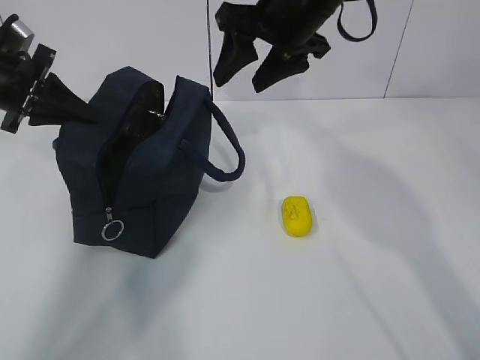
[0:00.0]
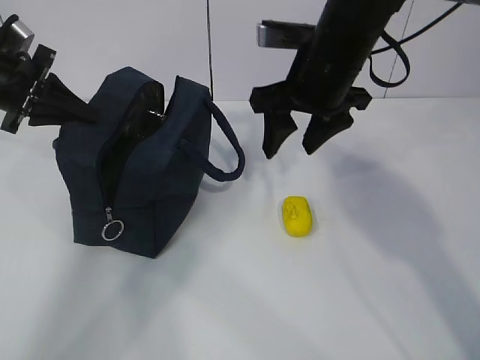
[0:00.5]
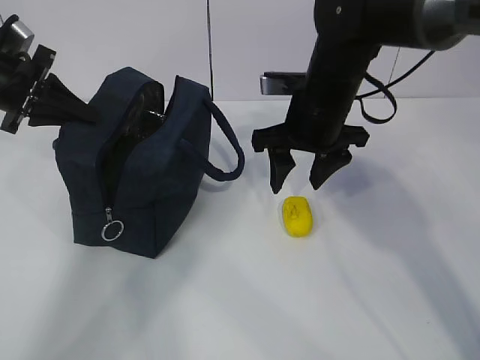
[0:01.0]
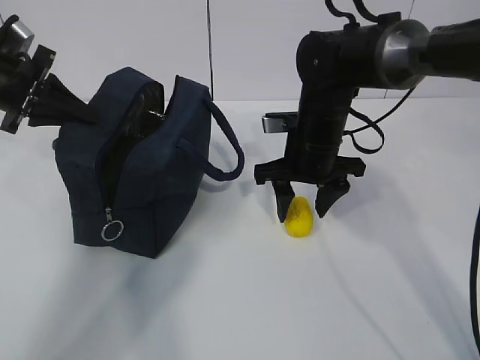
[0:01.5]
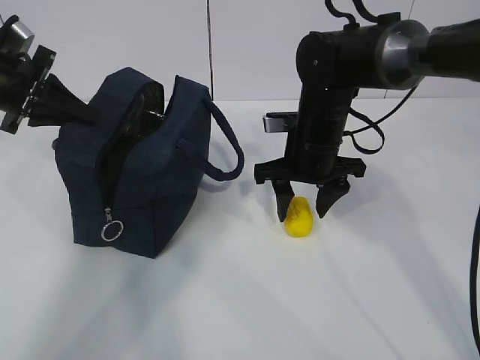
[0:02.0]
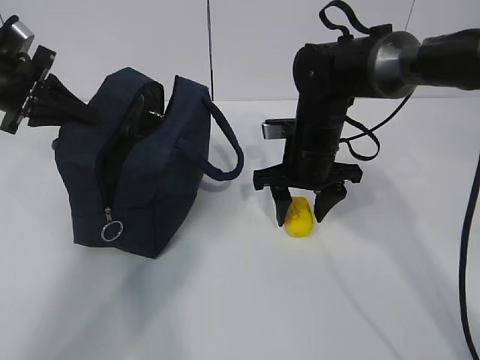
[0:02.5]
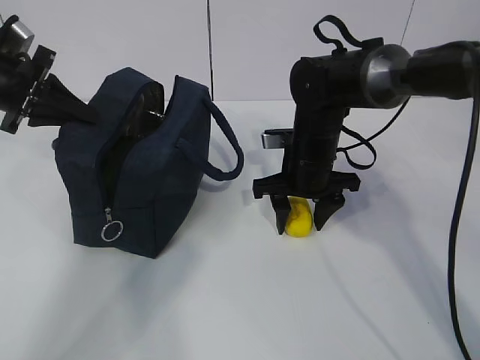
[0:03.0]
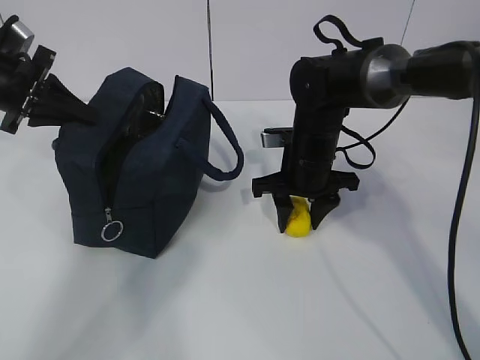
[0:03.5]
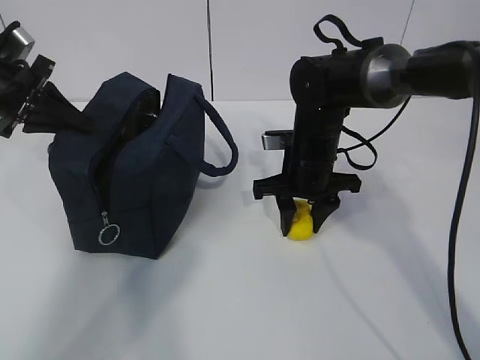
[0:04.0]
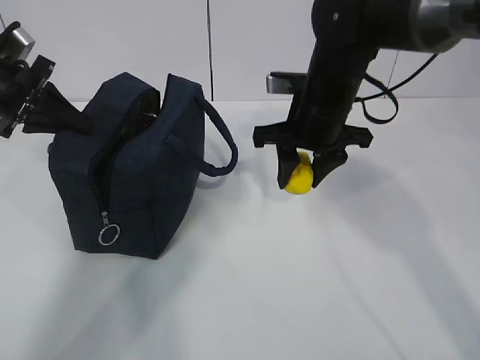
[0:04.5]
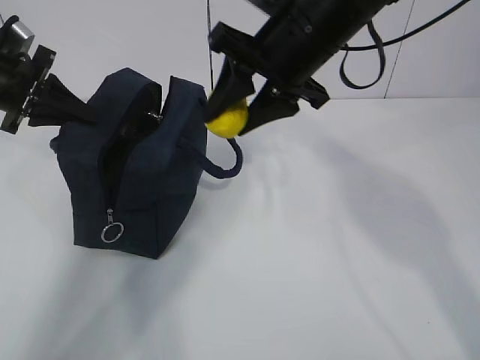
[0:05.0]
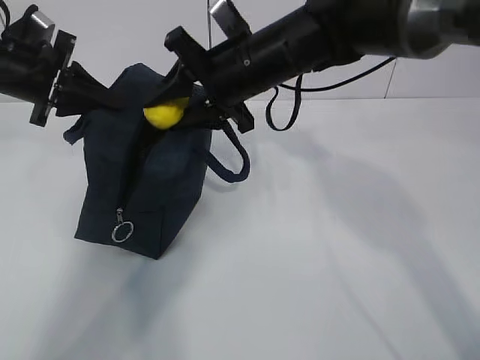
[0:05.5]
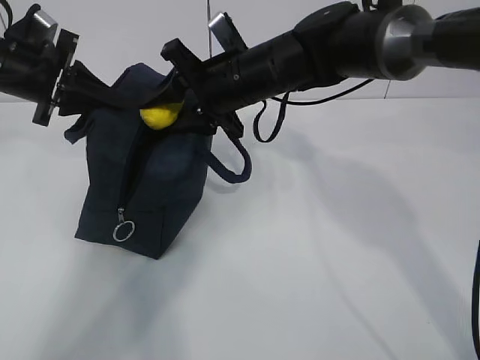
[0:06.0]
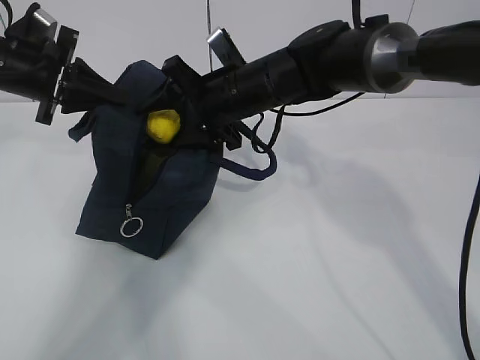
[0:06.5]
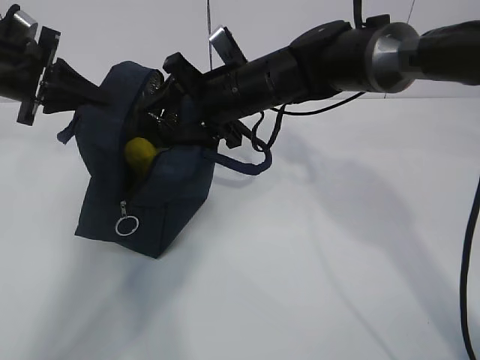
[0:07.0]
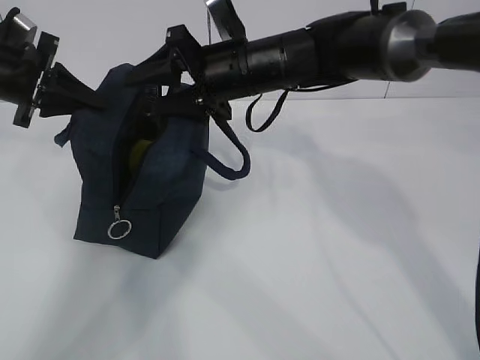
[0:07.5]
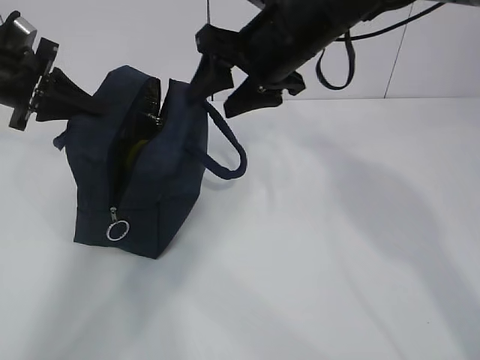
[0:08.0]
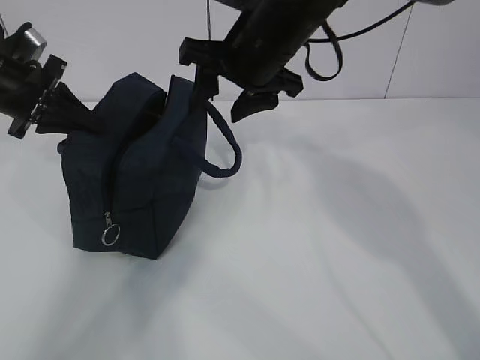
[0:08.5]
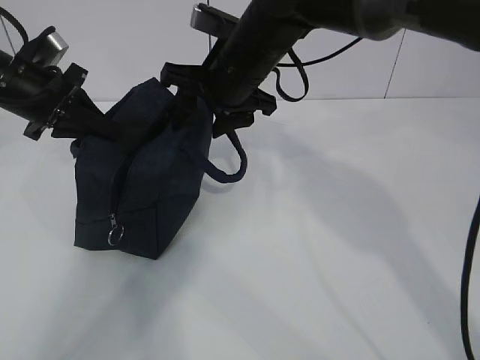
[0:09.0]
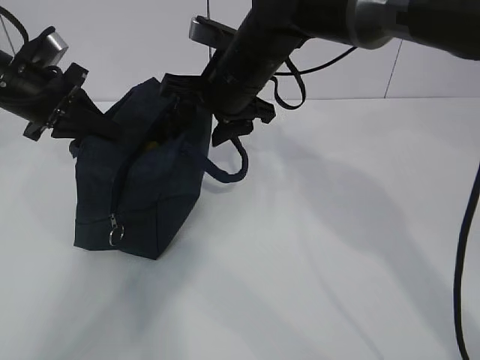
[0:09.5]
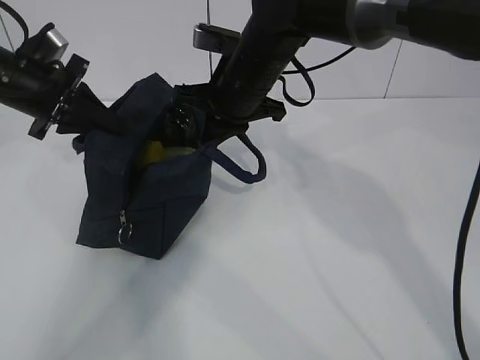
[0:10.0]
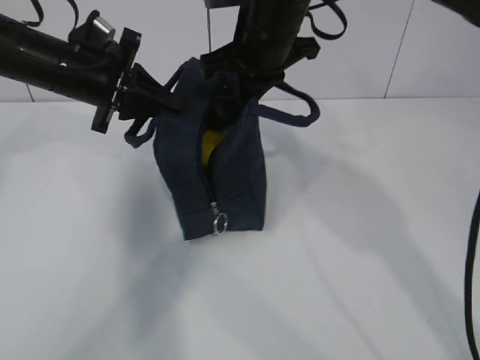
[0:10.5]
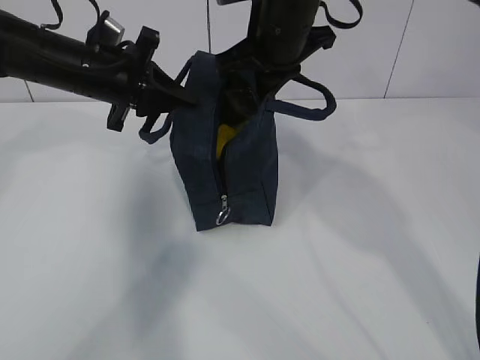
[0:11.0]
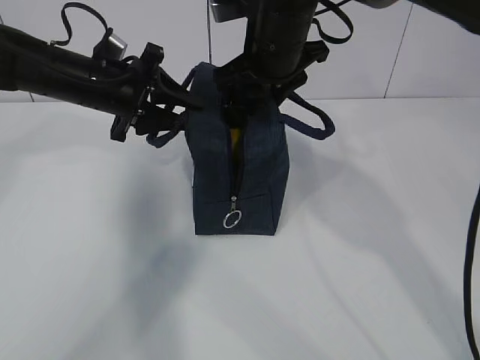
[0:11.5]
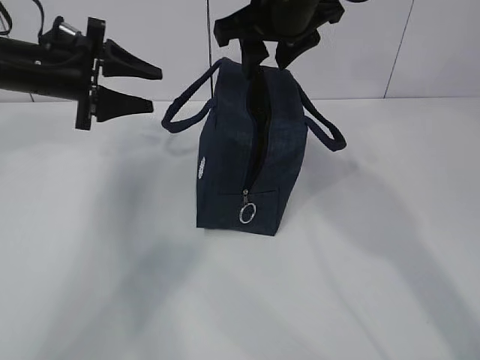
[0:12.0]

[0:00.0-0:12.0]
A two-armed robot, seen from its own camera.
Step, 0.5 to 2.0 s: Grab the lunch bag with your right hand.
Step, 2.5 to 4.0 s: Move the lunch bag to the right.
0.0 to 2.0 s: The right gripper goes some 15 cm downward.
2.0 to 4.0 s: The grippers make only small movements.
4.0 to 6.0 s: The right gripper is displaced upward and to the left by approximately 15 cm.
6.0 to 8.0 s: The right gripper goes some 5 cm upward.
8.0 to 10.0 s: The right gripper moves downward, approximately 5 cm, and closes up.
10.0 to 12.0 s: The right gripper moves upward, about 10 cm, and opens up. The left gripper goes to the right and returns, approximately 10 cm each way, and opens its fingers.

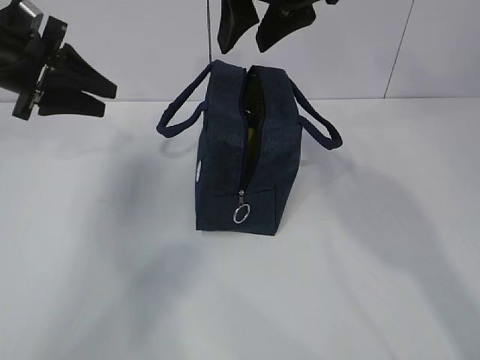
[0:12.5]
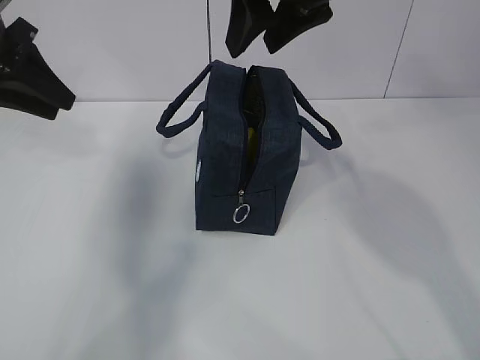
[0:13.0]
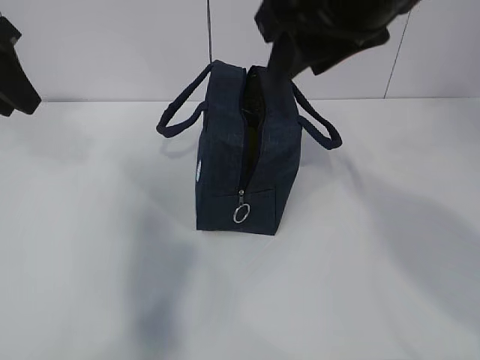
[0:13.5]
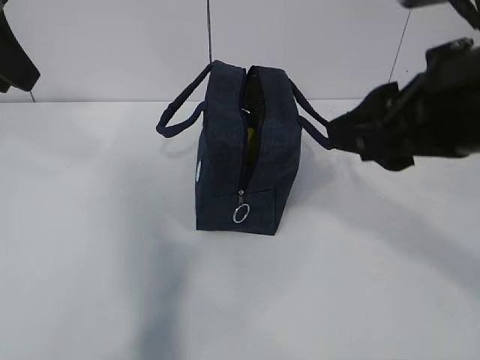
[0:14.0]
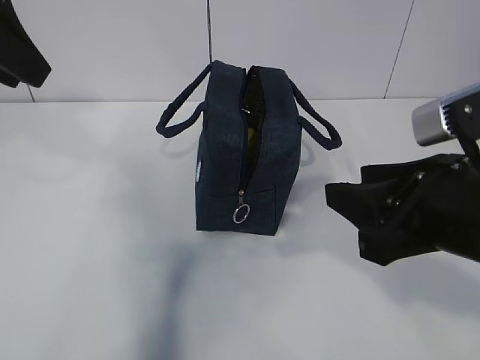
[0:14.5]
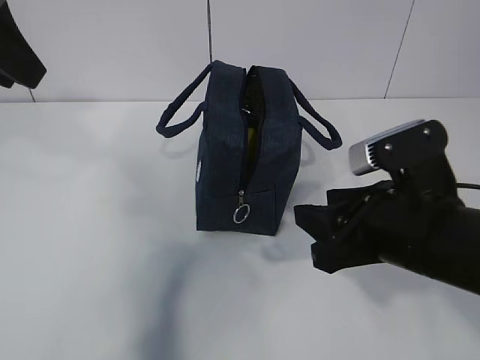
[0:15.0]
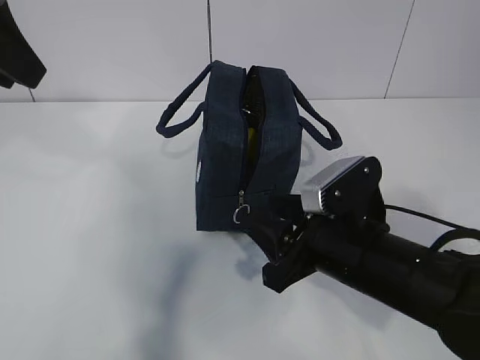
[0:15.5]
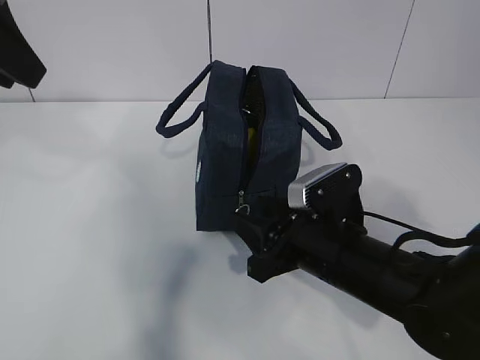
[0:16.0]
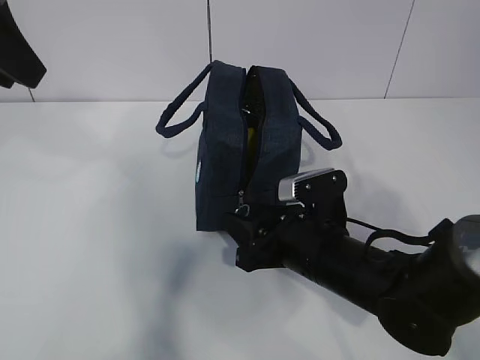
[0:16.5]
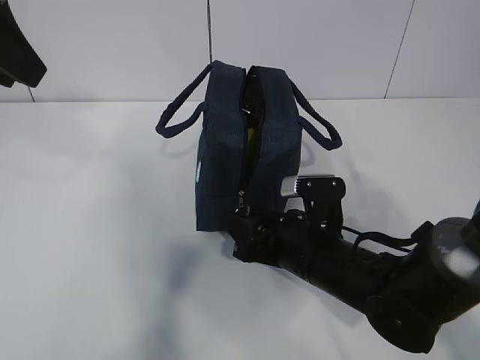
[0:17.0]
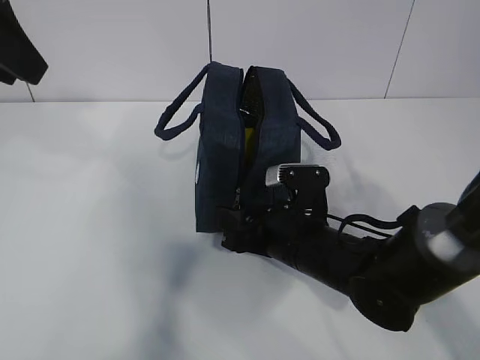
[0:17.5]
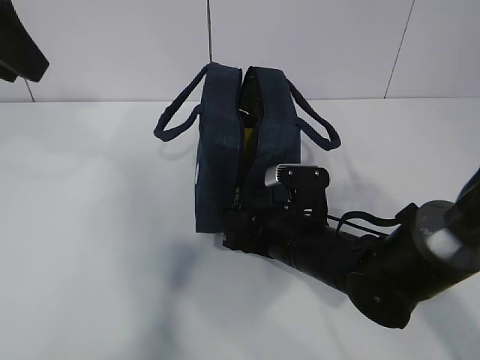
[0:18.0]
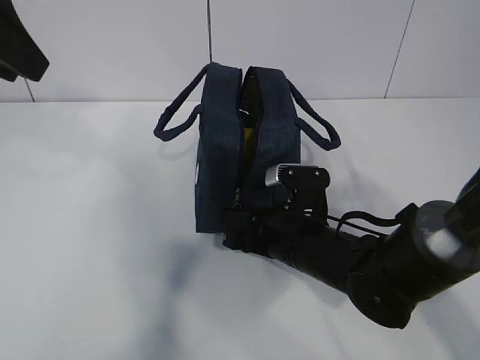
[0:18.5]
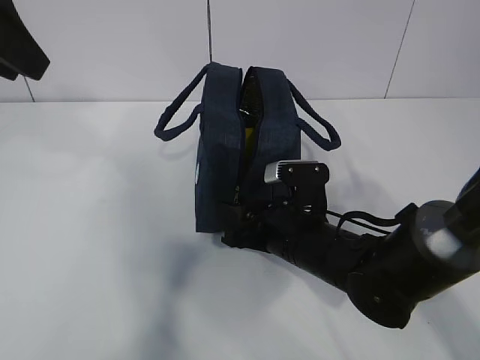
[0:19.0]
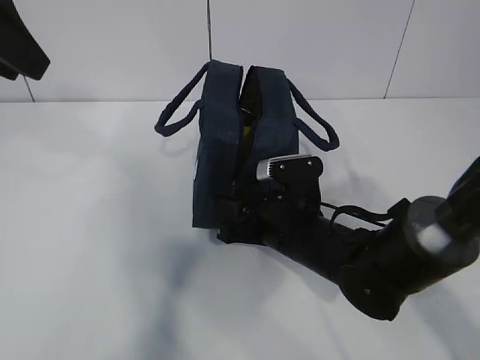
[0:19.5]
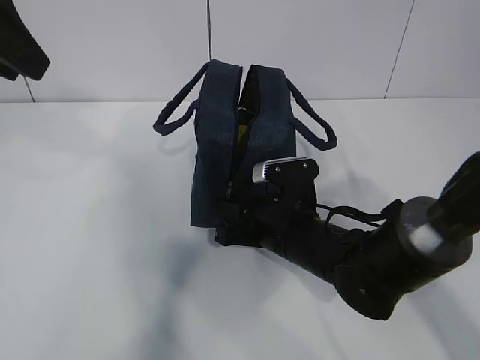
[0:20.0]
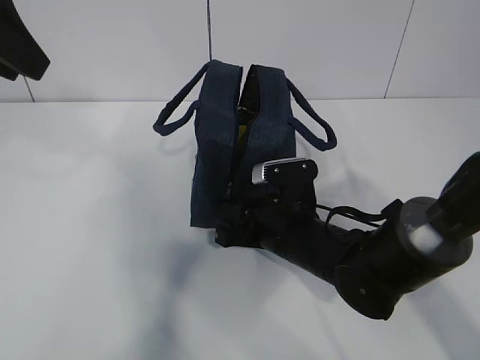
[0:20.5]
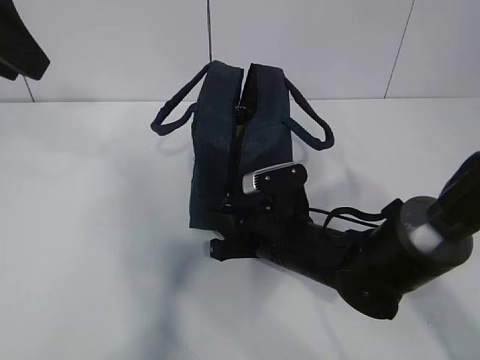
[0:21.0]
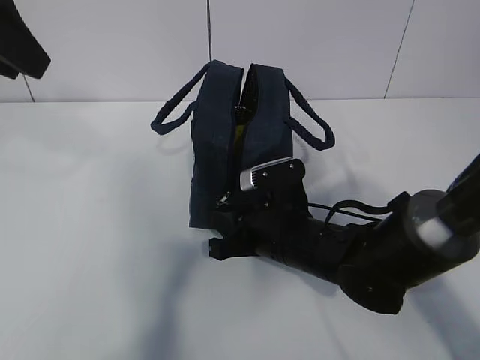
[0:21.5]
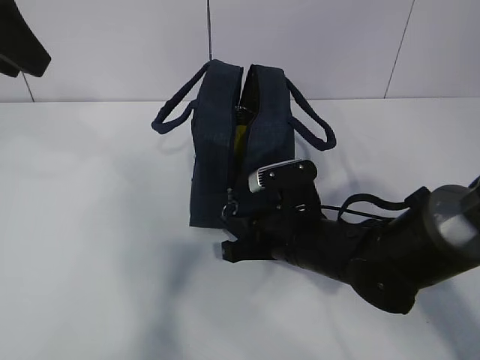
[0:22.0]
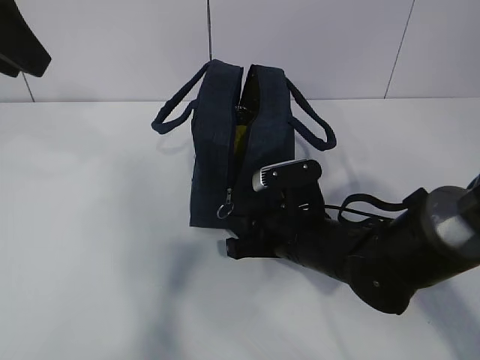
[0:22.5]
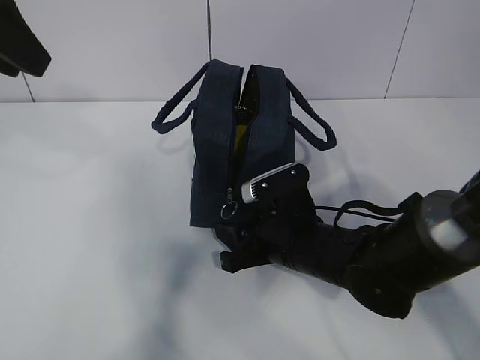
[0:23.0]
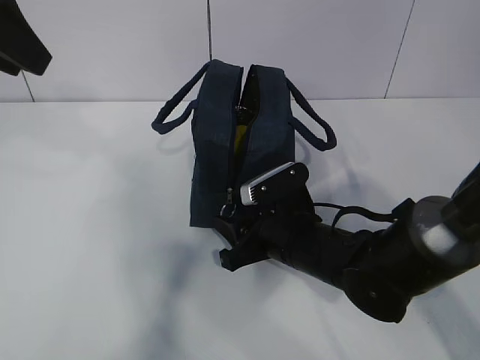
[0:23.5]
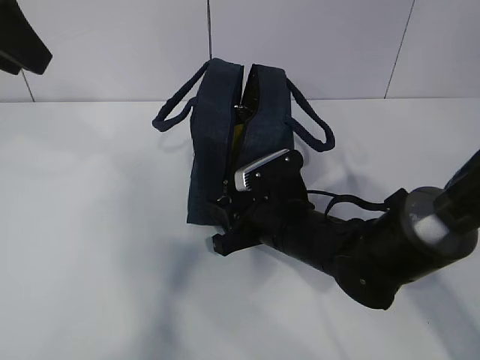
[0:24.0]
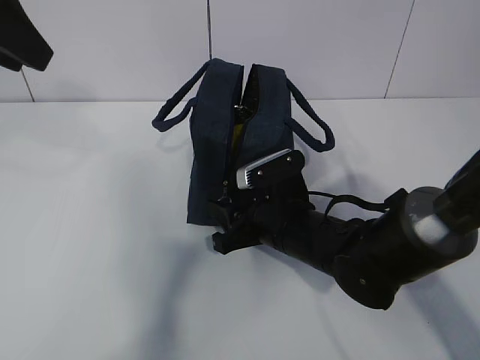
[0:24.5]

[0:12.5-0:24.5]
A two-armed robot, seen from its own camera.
Step, 12.5 to 22.5 s: Grab the lunch bag with your left hand.
12.5 to 14.5 s: The right gripper is displaced backward, downward and to the right by about 25 cm; the left gripper is displaced backward and upward by about 20 cm.
14.5 to 16.5 s: The right gripper goes about 20 cm downward, forward and to the left.
16.5 to 24.5 s: The grippers make only small movements.

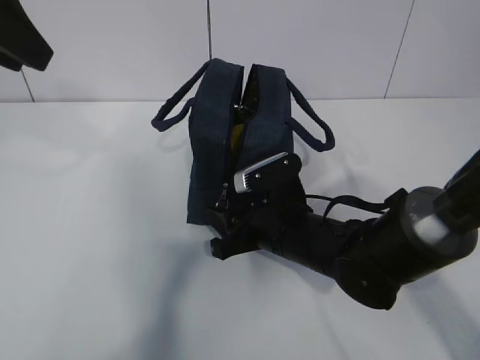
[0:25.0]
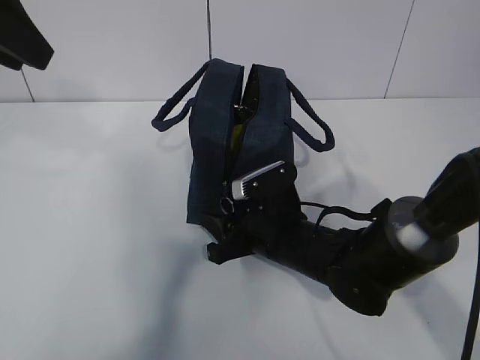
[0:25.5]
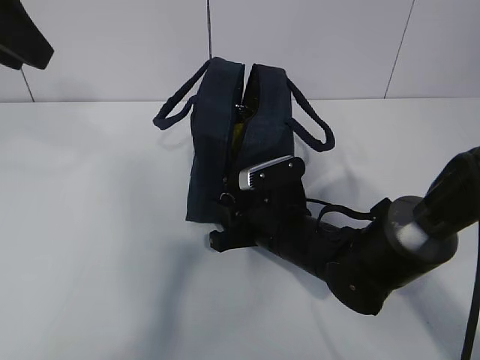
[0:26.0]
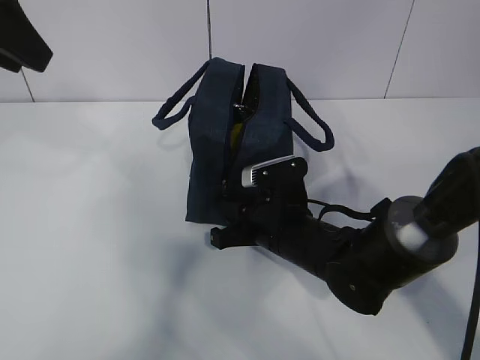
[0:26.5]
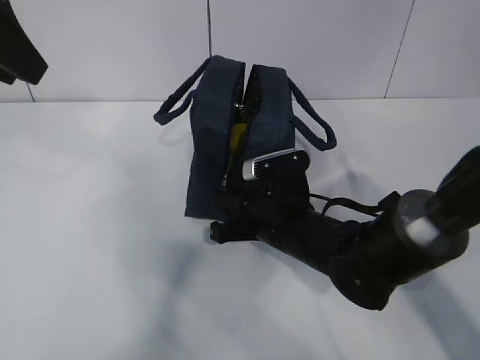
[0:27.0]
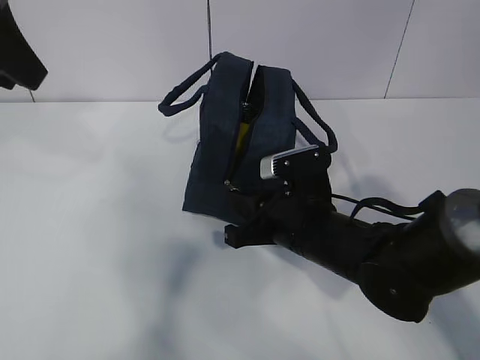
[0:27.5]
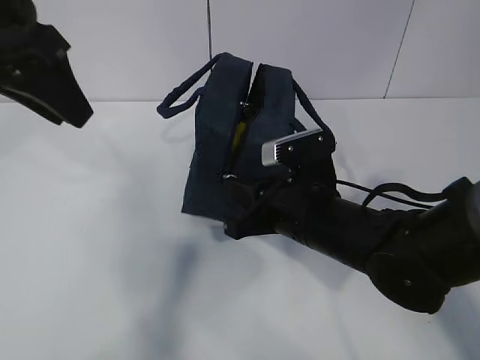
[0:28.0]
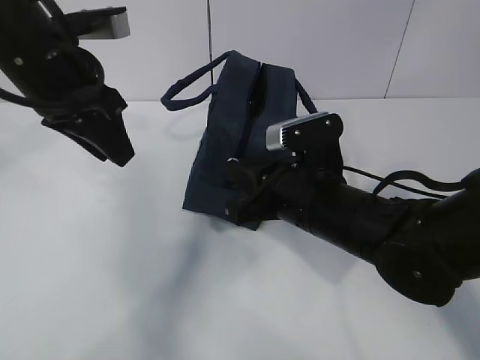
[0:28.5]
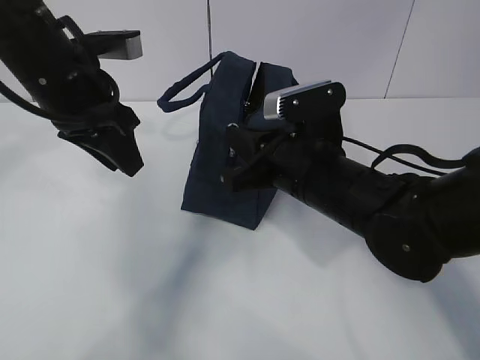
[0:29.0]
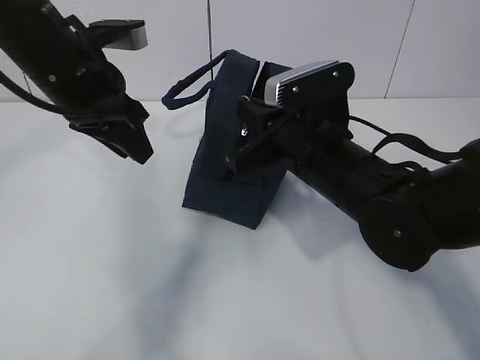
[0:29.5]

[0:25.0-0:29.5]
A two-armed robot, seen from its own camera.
Step, 25.0 to 27.5 s: Pull the zipper with your right hand.
25.0 to 27.0 s: The right gripper closes its fingers.
27.0 to 29.5 s: The right gripper travels upward by approximately 10 cm. Meanwhile the left gripper shifts about 15 cm downward, forward and to the right.
